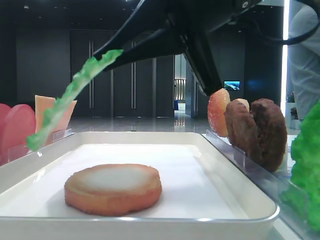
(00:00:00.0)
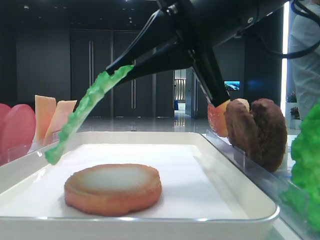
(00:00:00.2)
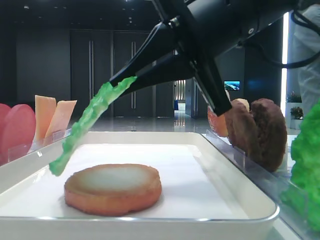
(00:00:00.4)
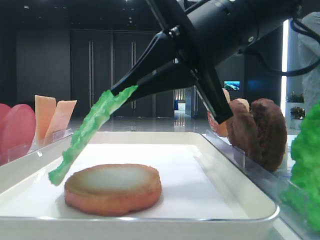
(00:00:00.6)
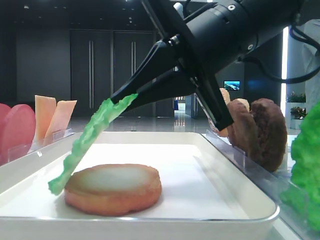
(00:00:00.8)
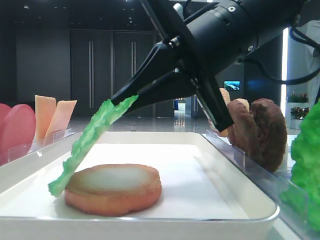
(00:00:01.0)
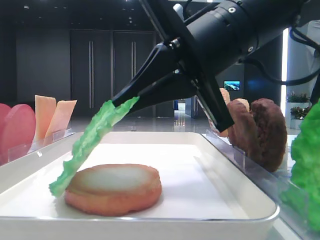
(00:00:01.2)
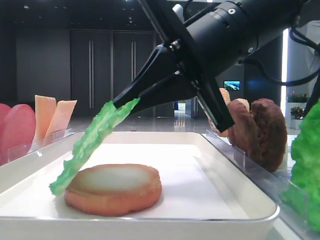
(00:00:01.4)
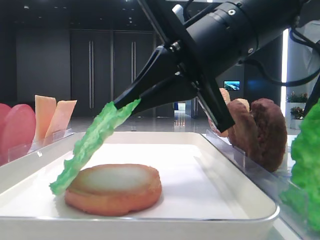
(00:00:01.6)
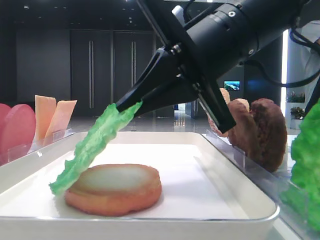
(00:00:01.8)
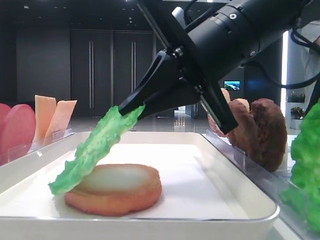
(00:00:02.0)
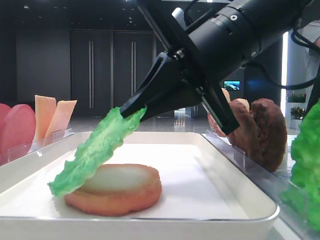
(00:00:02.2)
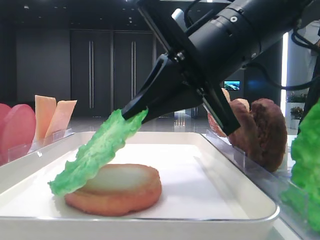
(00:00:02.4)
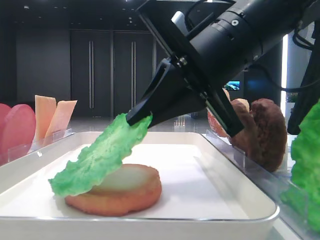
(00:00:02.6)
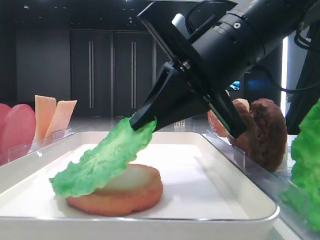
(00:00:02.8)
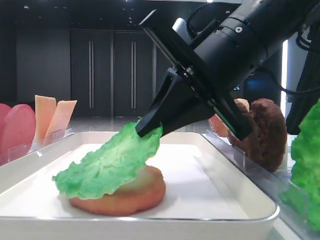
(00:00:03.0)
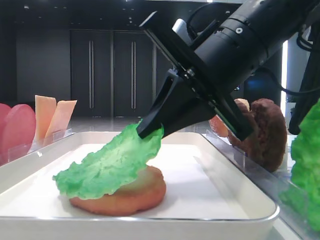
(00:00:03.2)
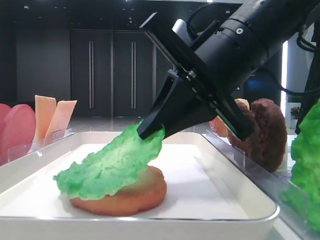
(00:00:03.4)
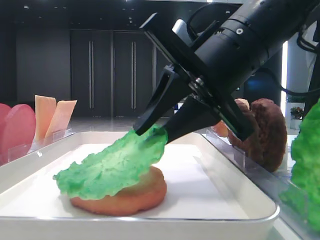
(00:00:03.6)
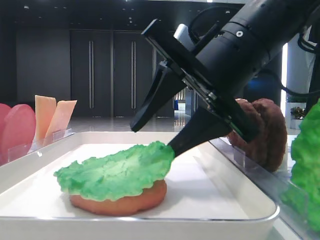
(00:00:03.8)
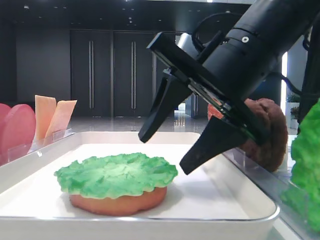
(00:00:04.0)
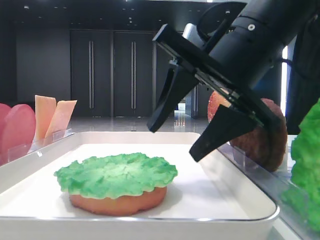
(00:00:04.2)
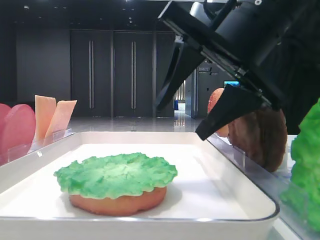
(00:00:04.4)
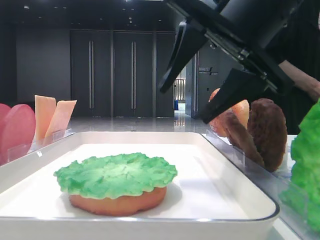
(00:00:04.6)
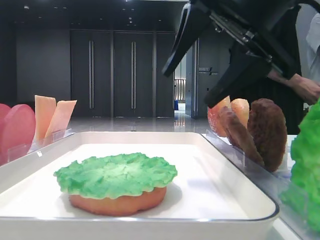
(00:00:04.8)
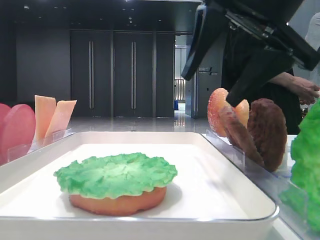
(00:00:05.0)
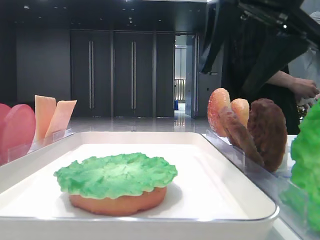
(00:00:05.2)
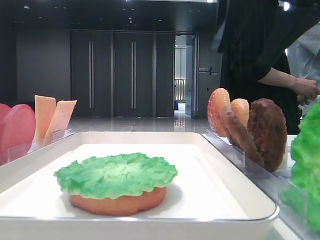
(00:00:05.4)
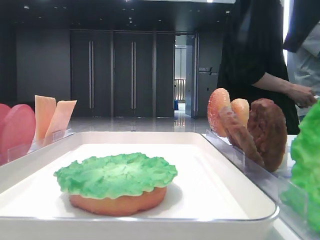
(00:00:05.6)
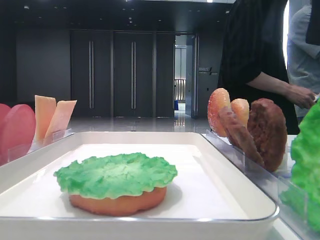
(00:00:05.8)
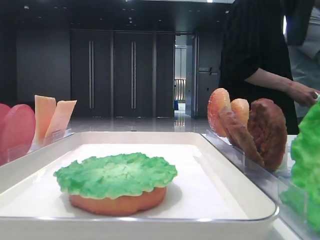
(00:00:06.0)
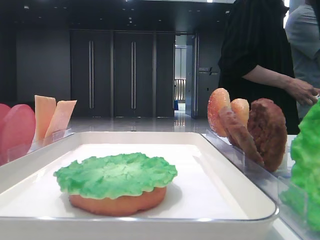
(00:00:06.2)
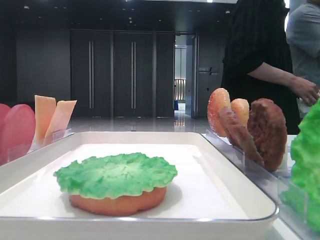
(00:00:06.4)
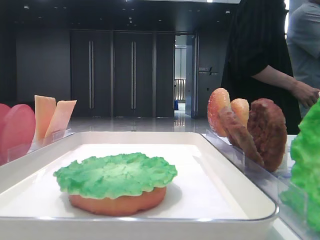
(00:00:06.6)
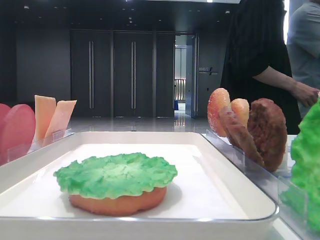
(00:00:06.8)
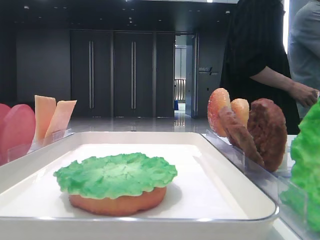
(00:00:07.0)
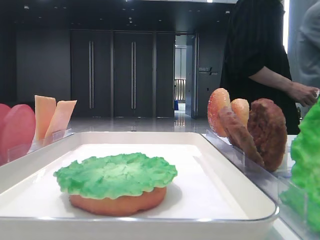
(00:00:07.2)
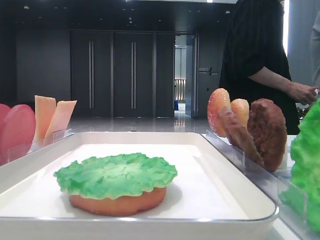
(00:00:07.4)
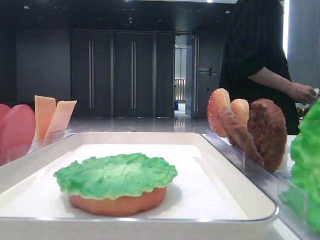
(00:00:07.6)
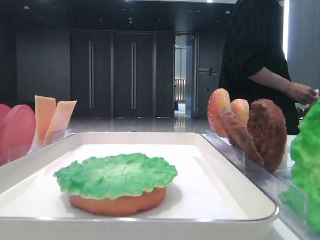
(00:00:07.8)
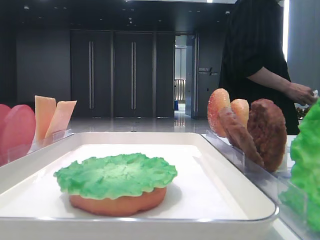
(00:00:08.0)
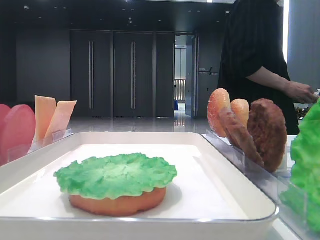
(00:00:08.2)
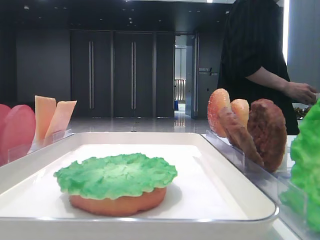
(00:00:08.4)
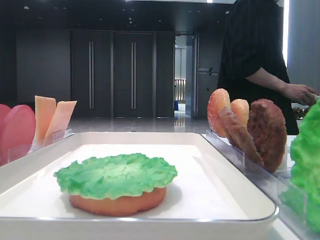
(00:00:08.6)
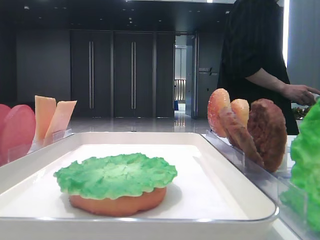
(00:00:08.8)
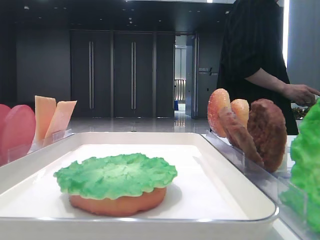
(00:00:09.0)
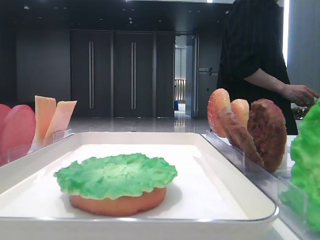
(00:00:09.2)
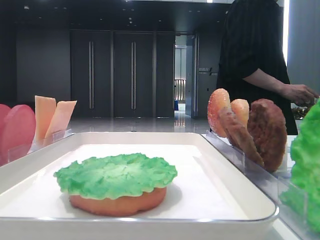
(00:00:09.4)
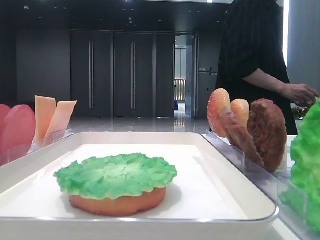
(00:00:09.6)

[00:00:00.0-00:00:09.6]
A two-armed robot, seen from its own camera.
Step, 00:00:00.0 to 00:00:04.0: Place the lettuce leaf on the bread slice with the right hand.
00:00:00.0 to 00:00:01.6: The grippers move only a little.
00:00:03.2 to 00:00:04.8: The right gripper shifts approximately 5 cm upward, and opens up.
00:00:04.8 to 00:00:06.4: The right gripper heads to the right and upward, covering some 15 cm.
00:00:06.4 to 00:00:08.0: The right gripper goes roughly 25 cm backward.
00:00:08.0 to 00:00:09.6: The right gripper changes place by approximately 5 cm.

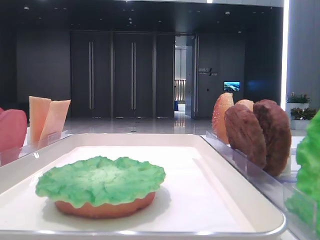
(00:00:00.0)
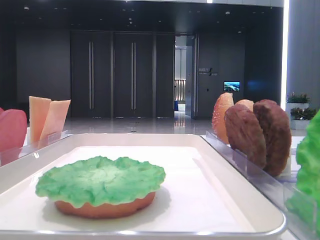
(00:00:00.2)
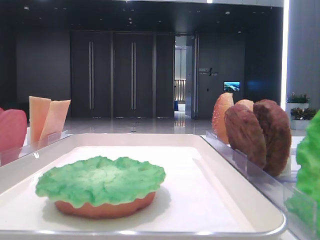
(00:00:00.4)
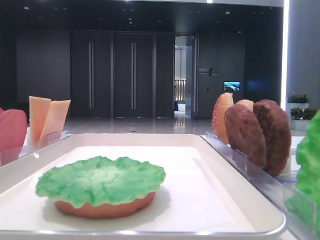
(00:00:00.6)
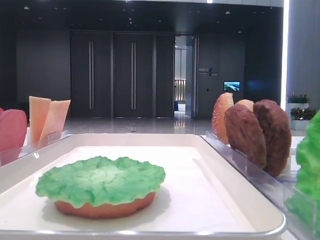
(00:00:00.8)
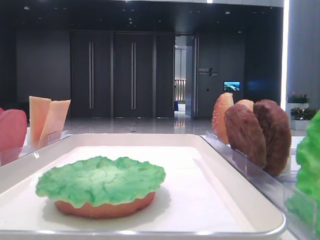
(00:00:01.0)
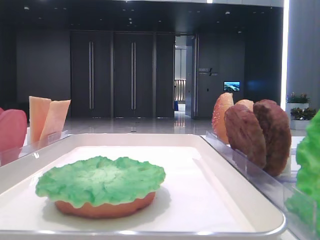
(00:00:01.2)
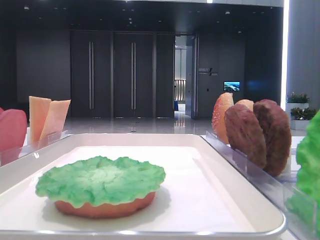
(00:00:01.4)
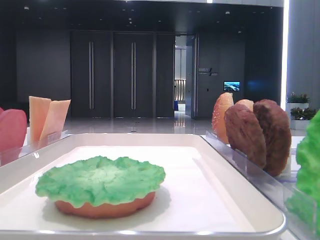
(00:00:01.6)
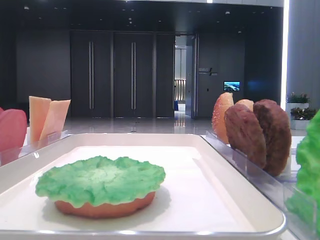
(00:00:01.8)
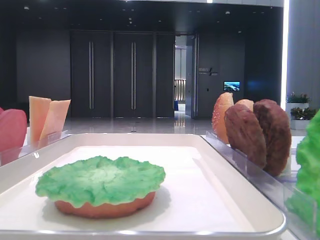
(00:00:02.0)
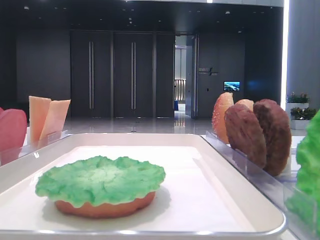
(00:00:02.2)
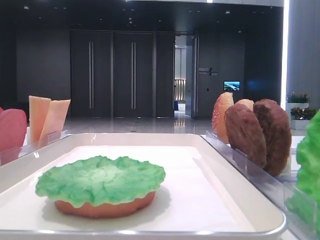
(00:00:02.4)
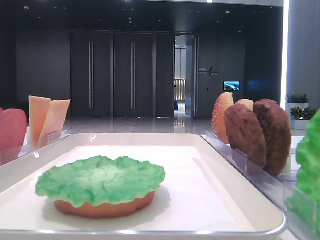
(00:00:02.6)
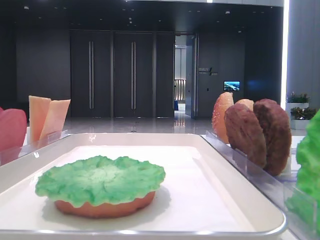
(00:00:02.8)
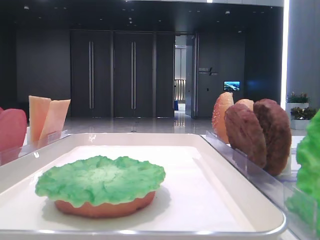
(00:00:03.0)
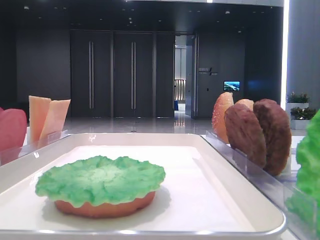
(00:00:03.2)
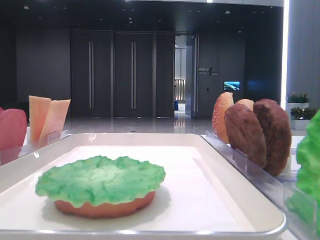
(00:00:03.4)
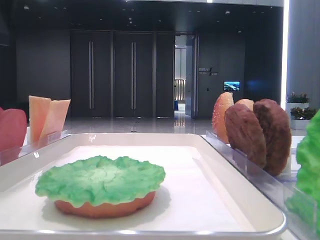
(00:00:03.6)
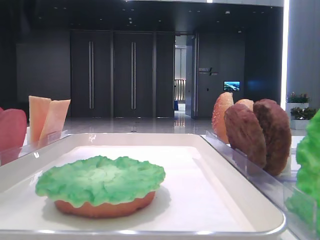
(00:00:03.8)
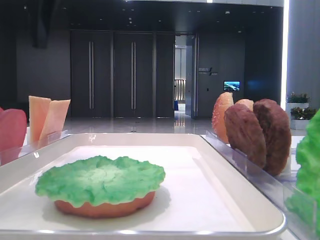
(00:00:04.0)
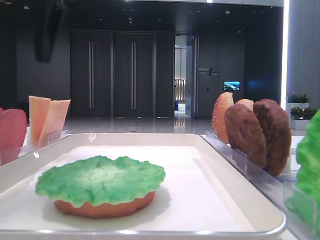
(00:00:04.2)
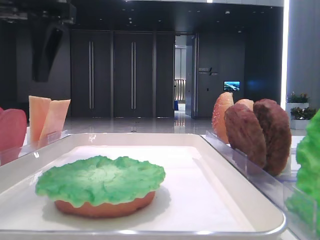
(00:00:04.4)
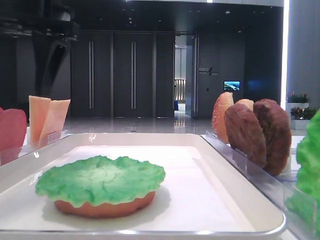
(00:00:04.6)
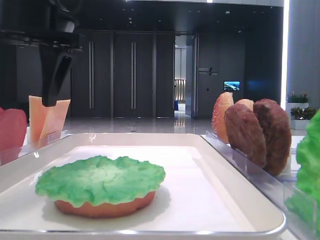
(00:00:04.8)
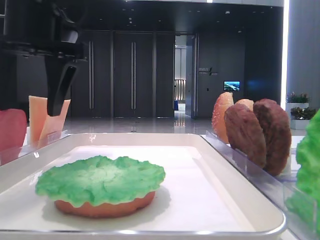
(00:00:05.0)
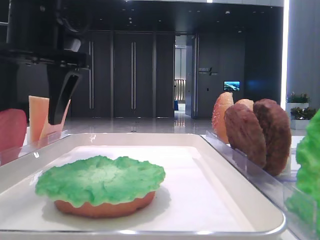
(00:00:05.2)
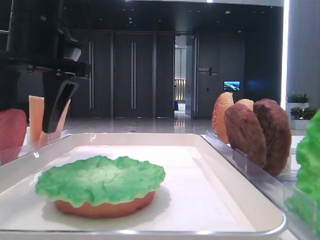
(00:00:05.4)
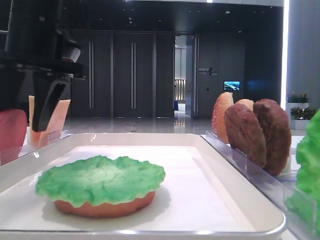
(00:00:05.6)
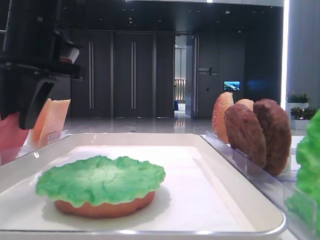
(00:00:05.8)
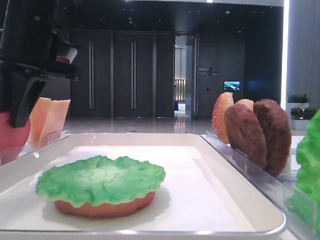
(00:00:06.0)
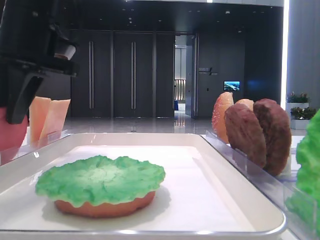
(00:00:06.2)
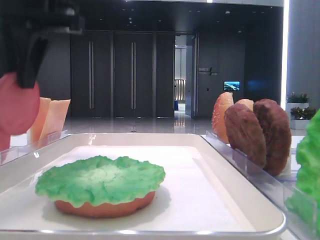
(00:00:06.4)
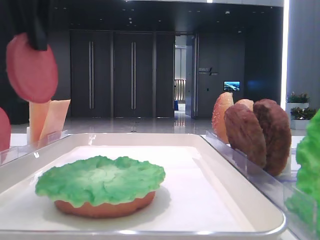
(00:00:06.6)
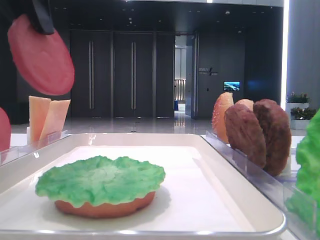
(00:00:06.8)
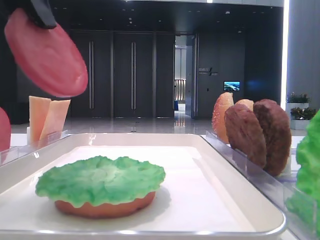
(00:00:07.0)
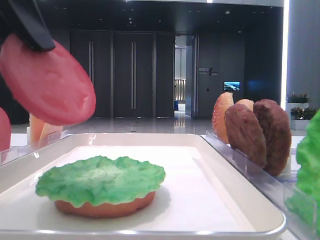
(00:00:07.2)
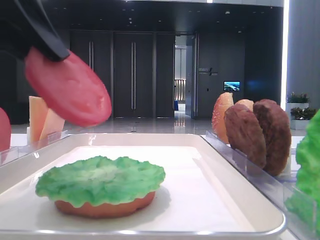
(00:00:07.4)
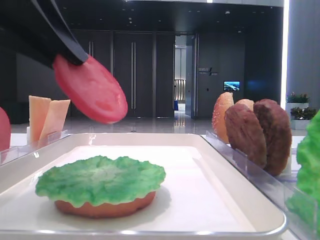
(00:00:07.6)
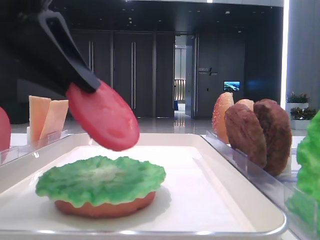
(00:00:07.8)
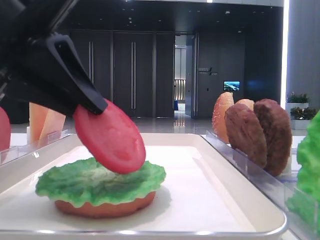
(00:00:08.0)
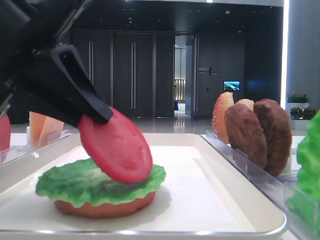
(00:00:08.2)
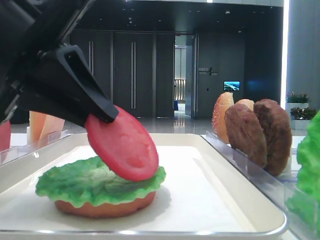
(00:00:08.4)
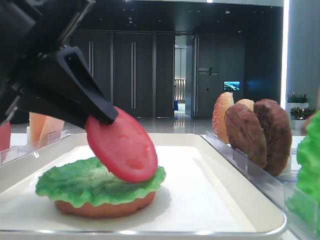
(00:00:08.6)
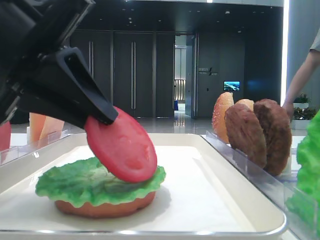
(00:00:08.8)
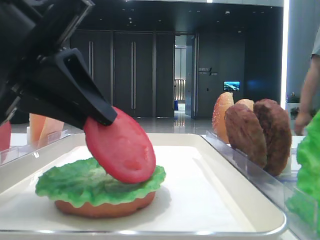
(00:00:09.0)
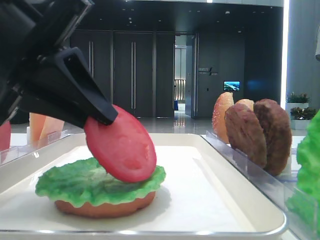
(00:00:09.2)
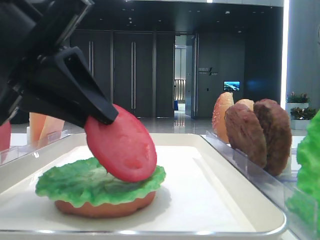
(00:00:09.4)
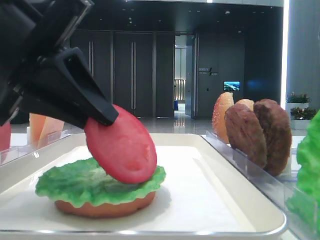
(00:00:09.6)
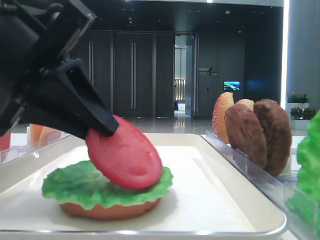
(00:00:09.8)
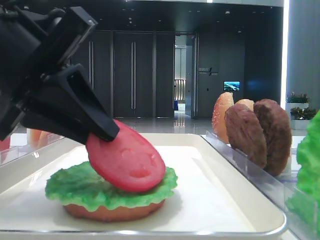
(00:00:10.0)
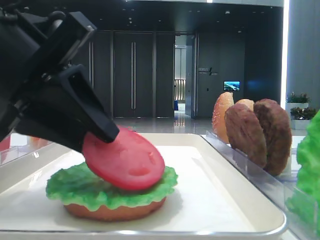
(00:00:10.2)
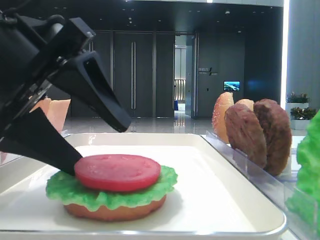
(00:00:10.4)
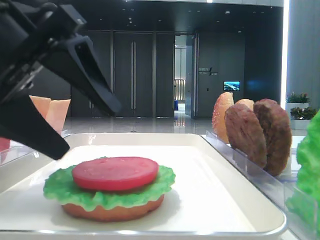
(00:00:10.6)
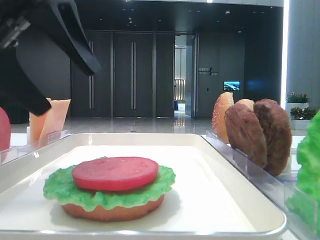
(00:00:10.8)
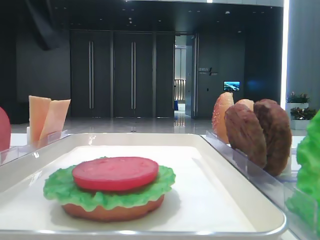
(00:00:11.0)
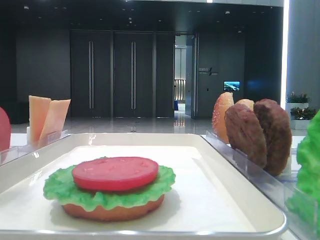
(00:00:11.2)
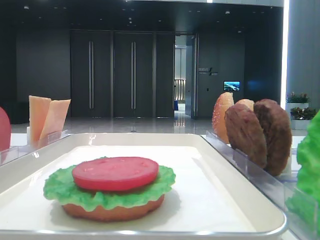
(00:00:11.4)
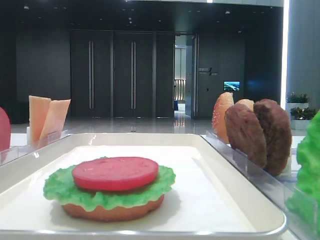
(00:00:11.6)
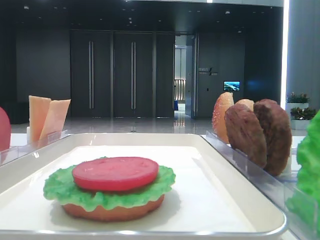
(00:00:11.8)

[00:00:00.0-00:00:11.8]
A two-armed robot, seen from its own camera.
Step, 00:00:00.0 to 00:00:05.8: Pick up the tomato slice with the left hand.
Step, 00:00:06.0 to 00:00:10.4: Place the tomato slice on the lettuce leaf with the left hand.
00:00:03.0 to 00:00:04.4: The left gripper goes roughly 15 cm to the right.
00:00:04.4 to 00:00:06.0: The left gripper heads downward, covering some 5 cm, and closes.
00:00:06.0 to 00:00:07.4: The left gripper travels backward by about 15 cm.
00:00:07.4 to 00:00:08.8: The left gripper shifts some 5 cm downward.
00:00:08.8 to 00:00:10.4: The left gripper opens.
00:00:10.4 to 00:00:11.8: The left gripper is displaced to the left, upward and backward by roughly 20 cm.
